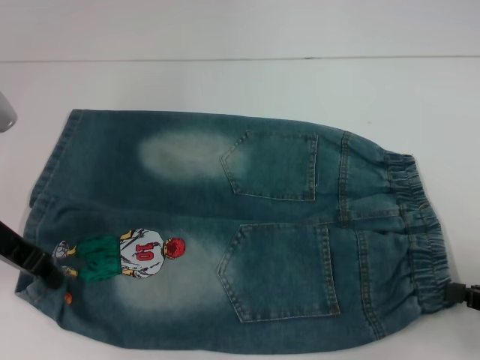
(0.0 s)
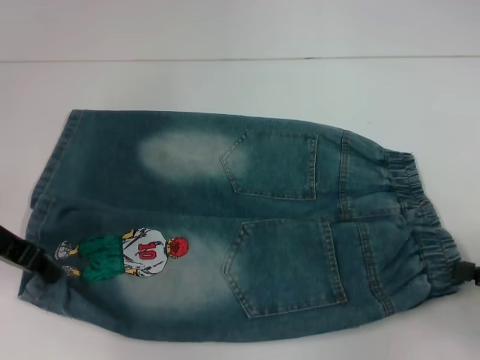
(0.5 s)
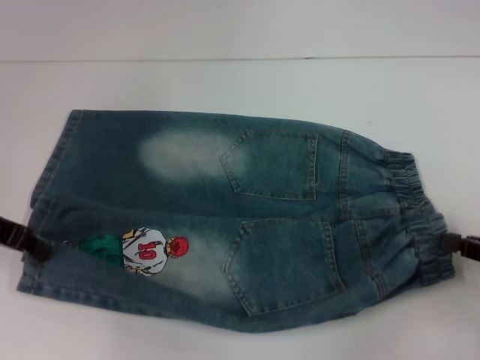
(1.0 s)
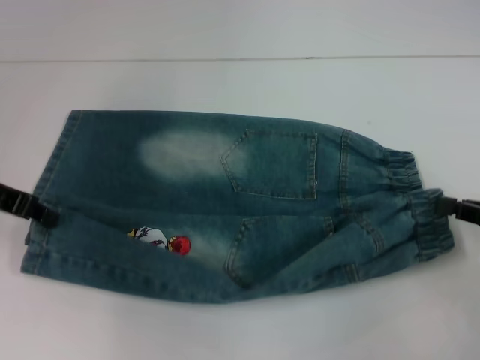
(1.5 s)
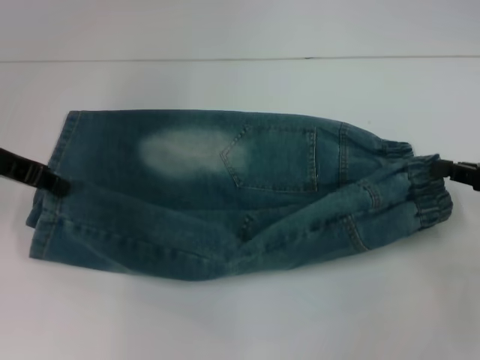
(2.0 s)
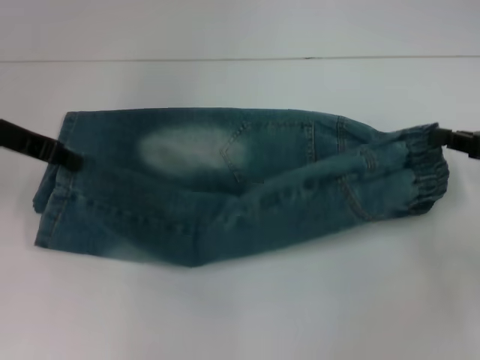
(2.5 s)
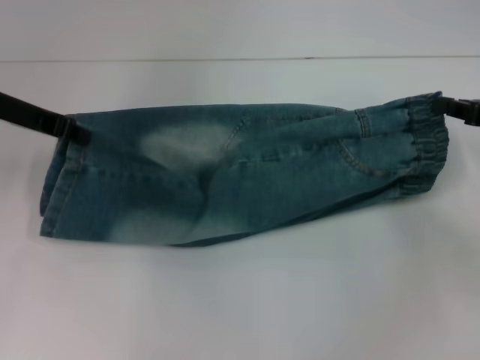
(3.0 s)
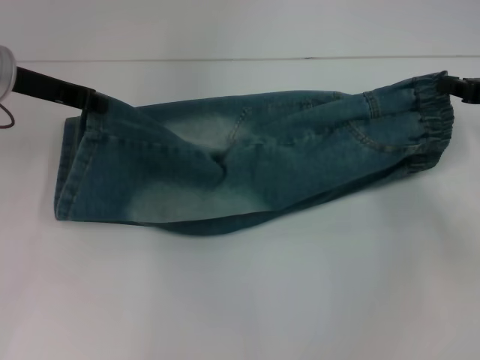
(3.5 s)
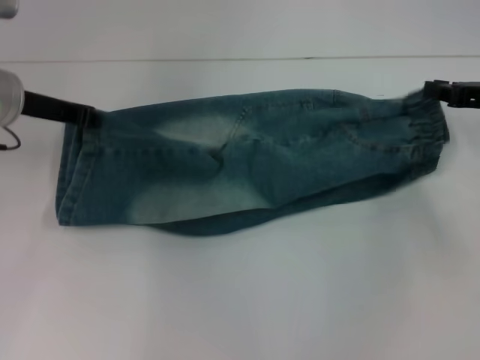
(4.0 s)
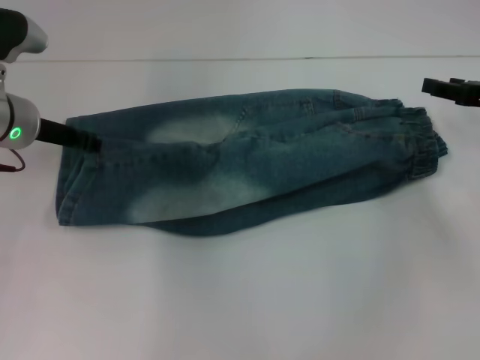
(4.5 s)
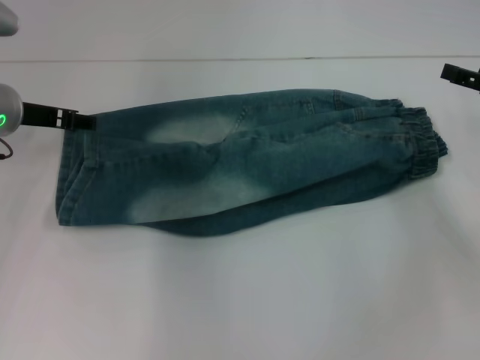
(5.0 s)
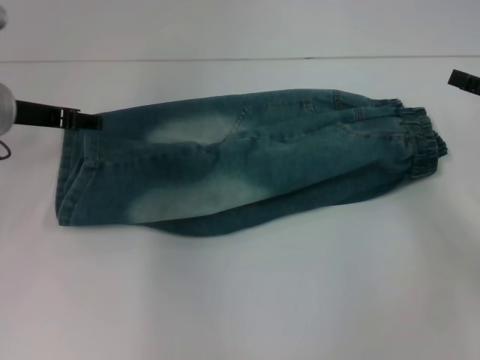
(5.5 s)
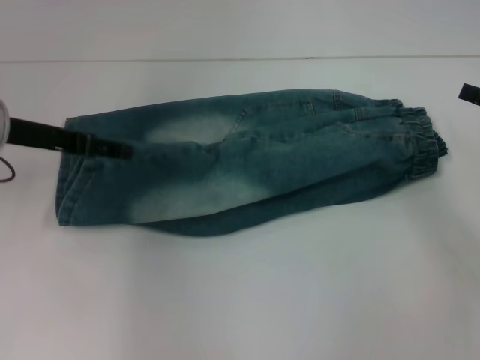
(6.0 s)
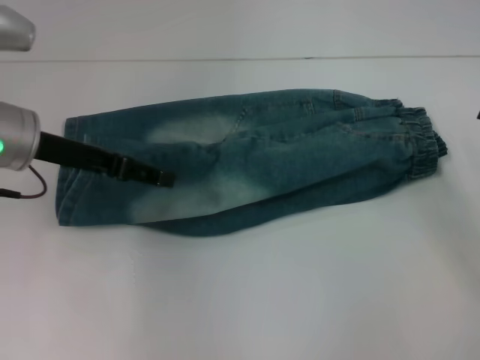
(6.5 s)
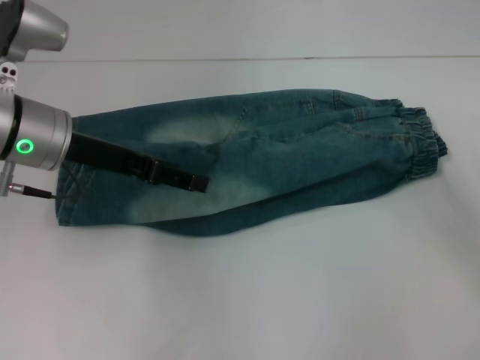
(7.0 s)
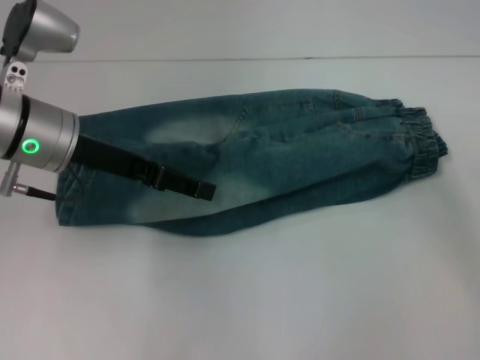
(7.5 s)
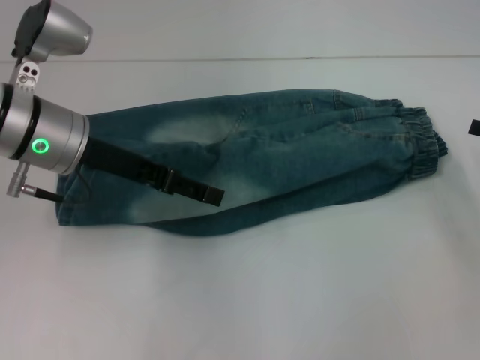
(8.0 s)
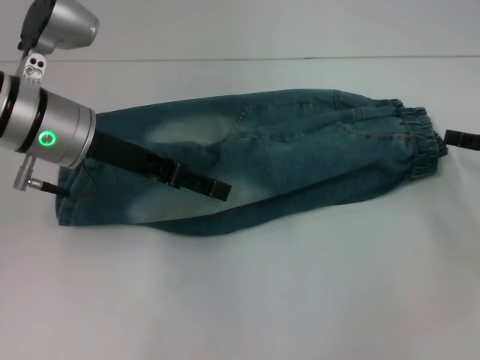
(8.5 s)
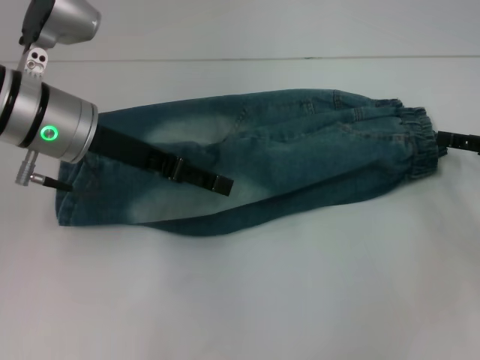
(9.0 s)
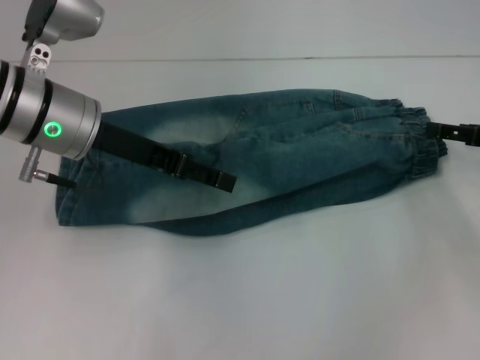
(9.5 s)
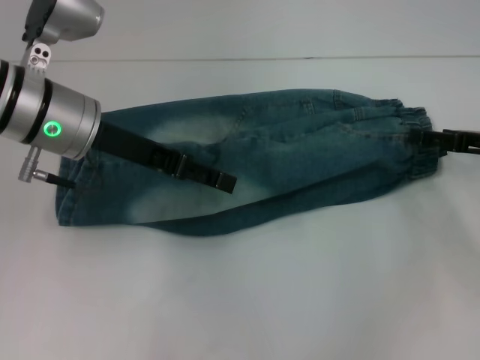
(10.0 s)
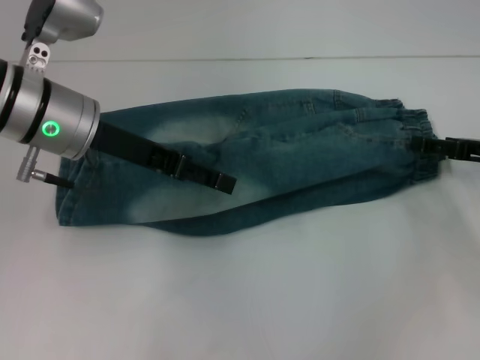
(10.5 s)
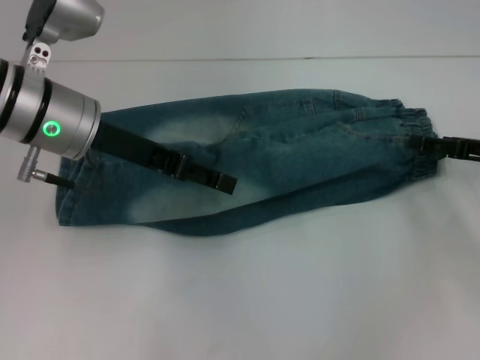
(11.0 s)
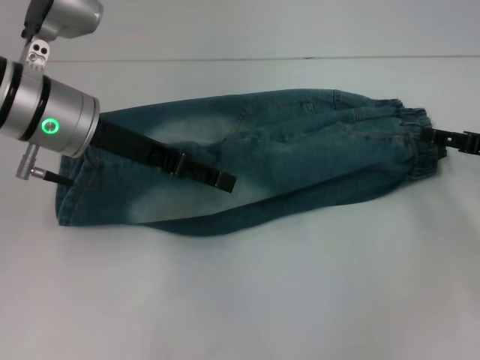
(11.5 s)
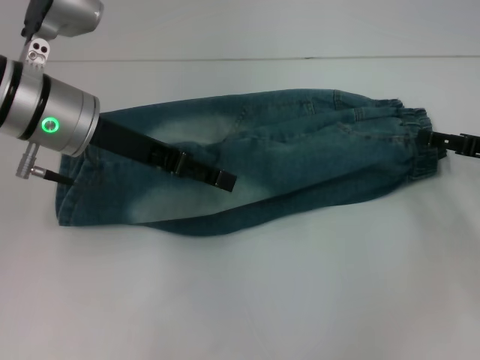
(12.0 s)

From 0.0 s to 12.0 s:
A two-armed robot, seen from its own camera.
Step, from 0.5 s to 4.0 s: Fold upward with your right hand.
From 0.0 s to 2.0 s: The right gripper moves forward, some 10 cm.
From 2.0 s to 4.0 s: The right gripper travels forward by some 10 cm. Meanwhile the left gripper moves about 5 cm.
From 4.0 s to 6.0 s: The right gripper travels backward by about 5 cm, and opens up, while the left gripper opens its fingers.
From 6.0 s to 8.0 s: The left gripper goes roughly 5 cm to the right.
From 8.0 s to 10.0 s: The right gripper travels to the left by roughly 5 cm.
From 10.0 s to 12.0 s: There are only small adjustments of the grippers.

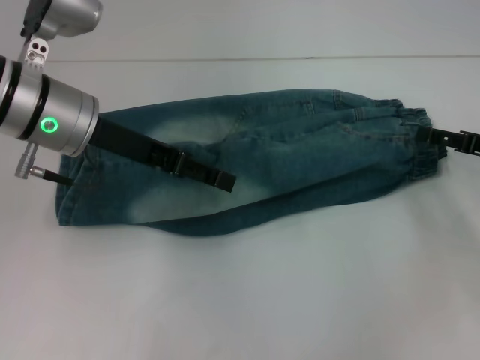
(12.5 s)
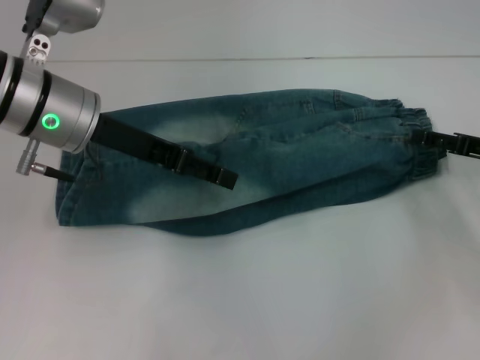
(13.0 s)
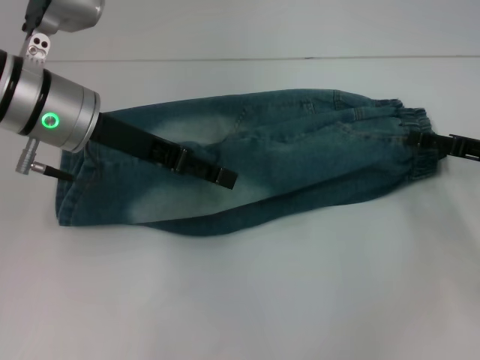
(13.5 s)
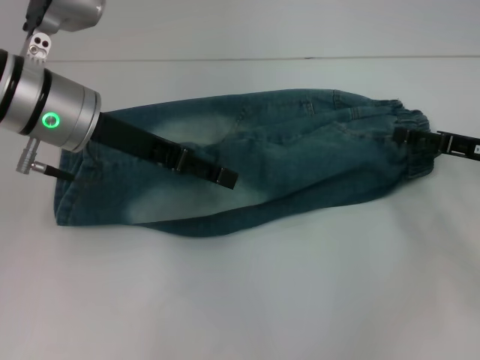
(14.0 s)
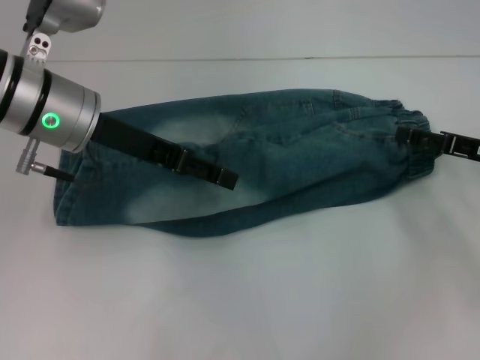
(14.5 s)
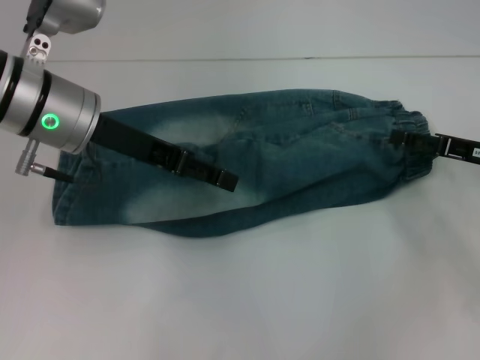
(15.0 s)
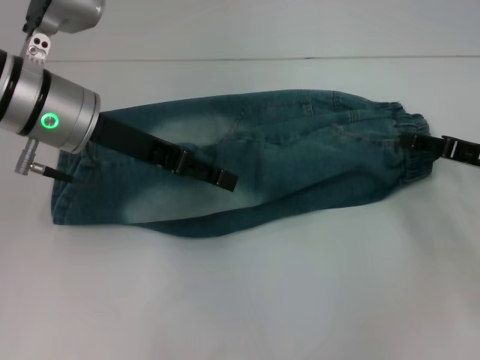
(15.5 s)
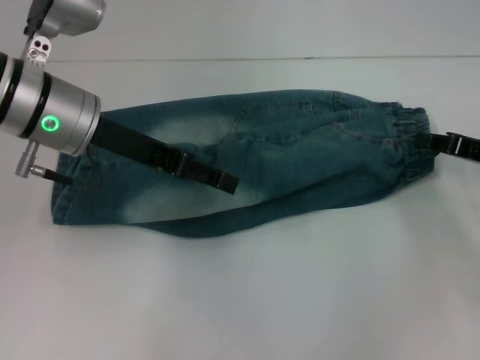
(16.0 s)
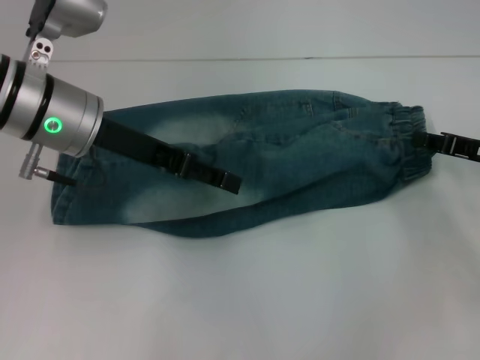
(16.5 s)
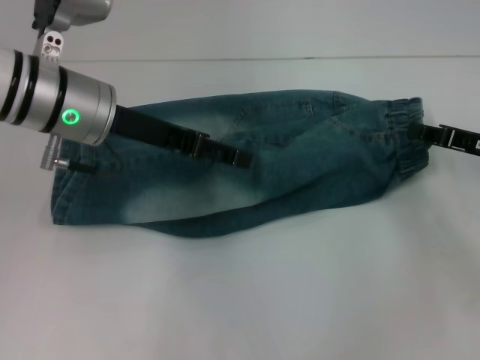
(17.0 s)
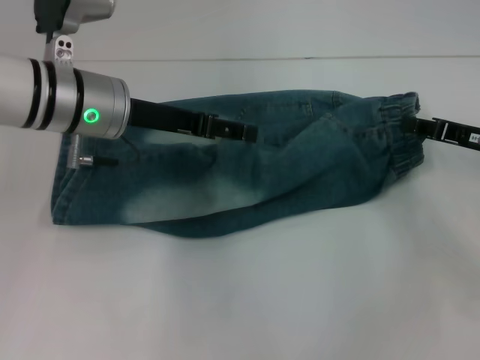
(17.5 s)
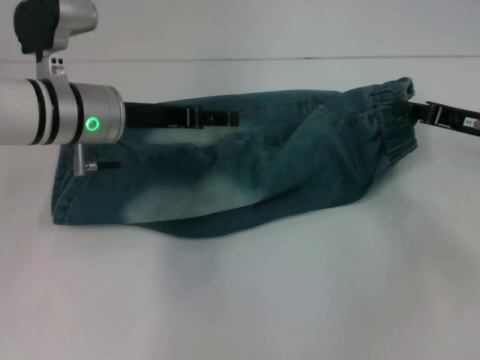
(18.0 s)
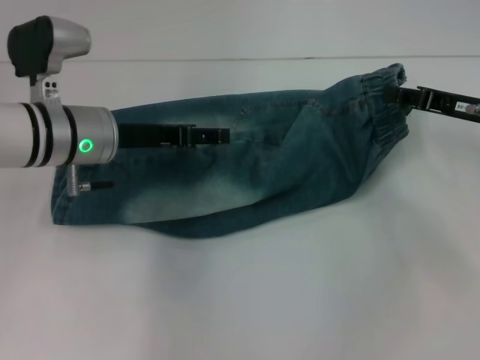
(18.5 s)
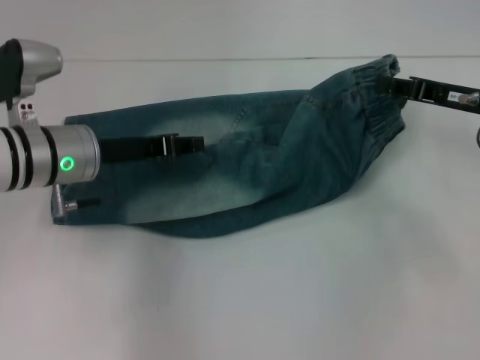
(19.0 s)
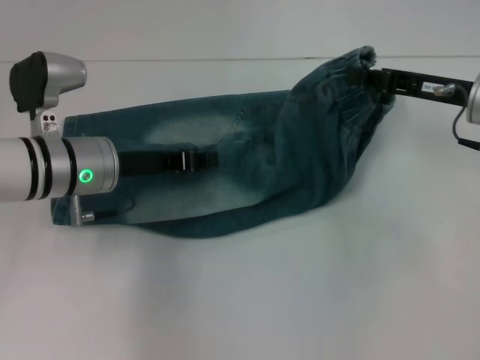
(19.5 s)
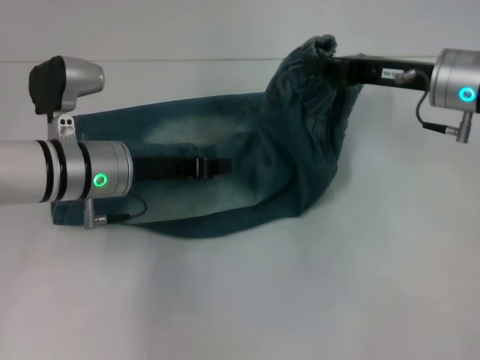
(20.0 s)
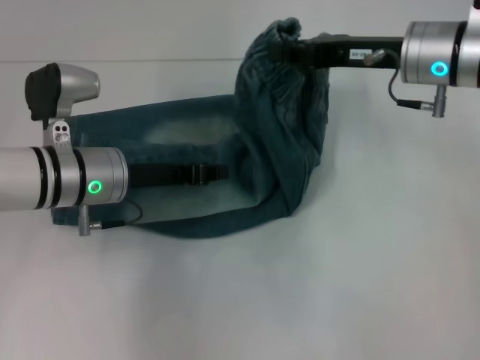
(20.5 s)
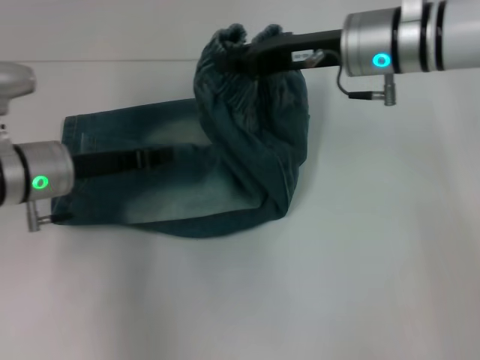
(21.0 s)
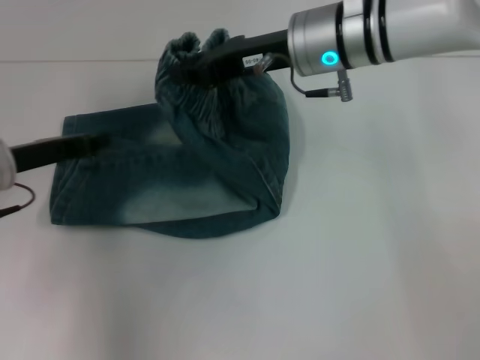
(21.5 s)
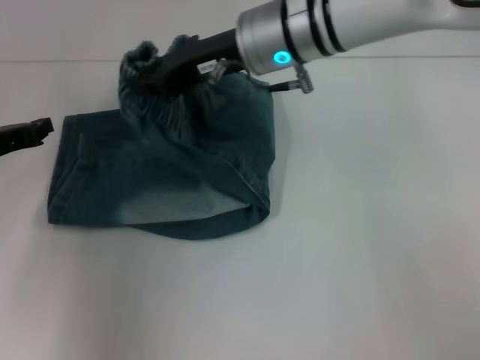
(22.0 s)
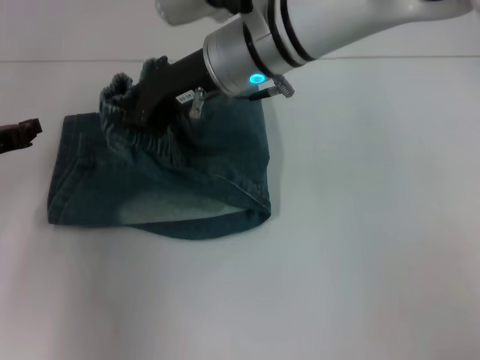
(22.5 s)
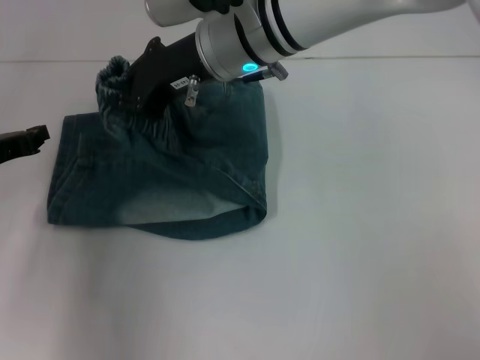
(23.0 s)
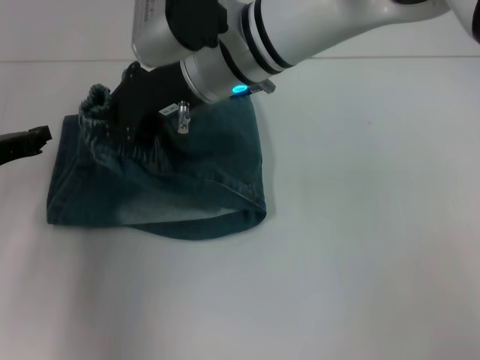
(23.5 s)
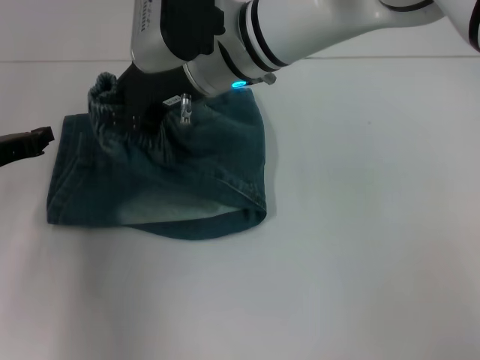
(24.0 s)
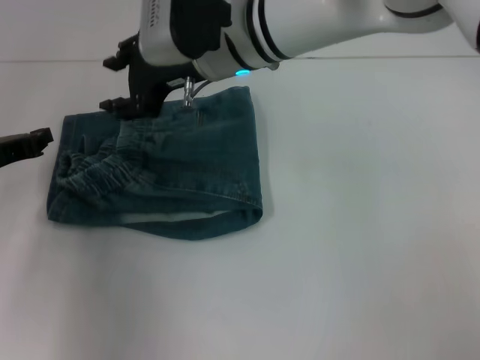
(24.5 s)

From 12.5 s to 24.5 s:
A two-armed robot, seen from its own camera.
Step, from 12.5 s to 16.5 s: Grab the waistband with your right hand.
Step, from 17.0 s to 20.0 s: Press the middle of the pants with your left hand.
Step, from 20.5 s to 24.5 s: Fold to the left with your right hand.
From 12.5 s to 14.5 s: There are only small adjustments of the grippers.
From 14.5 s to 16.5 s: The right gripper closes its fingers.
From 16.5 s to 18.5 s: The right gripper shifts by approximately 5 cm, while the left gripper is displaced downward by about 5 cm.
From 18.5 s to 20.5 s: The right gripper goes some 15 cm to the left and upward. Meanwhile the left gripper closes.
From 20.5 s to 22.5 s: The two grippers go about 15 cm to the left.
From 22.5 s to 24.5 s: The right gripper opens its fingers.

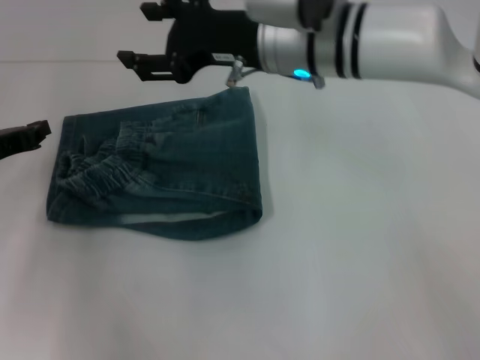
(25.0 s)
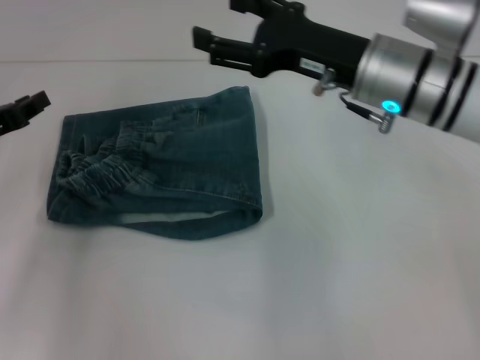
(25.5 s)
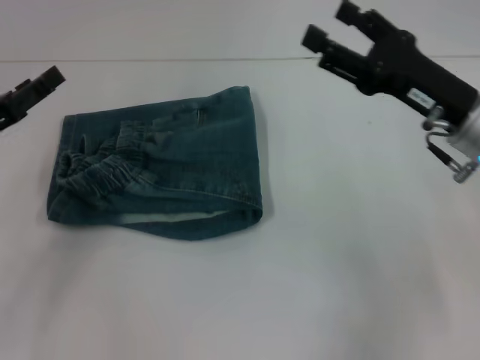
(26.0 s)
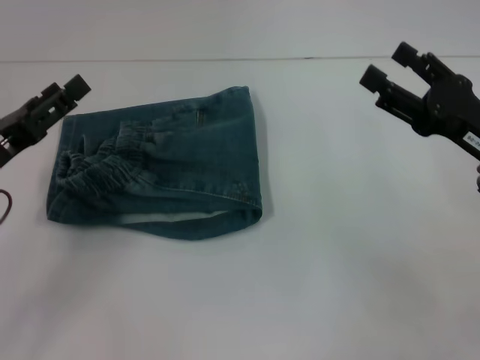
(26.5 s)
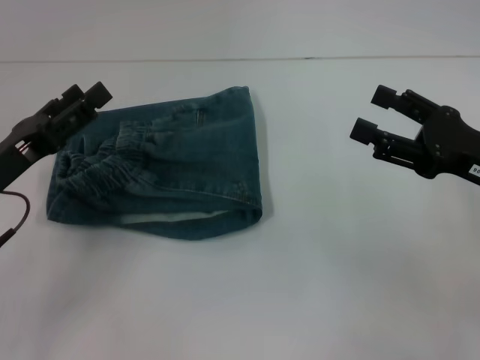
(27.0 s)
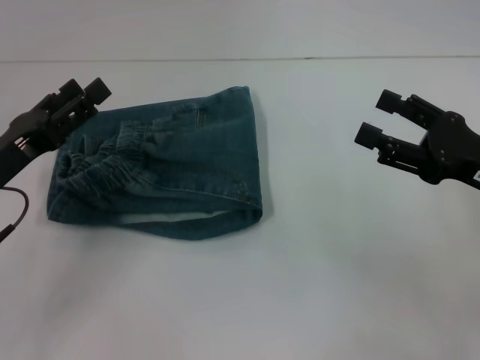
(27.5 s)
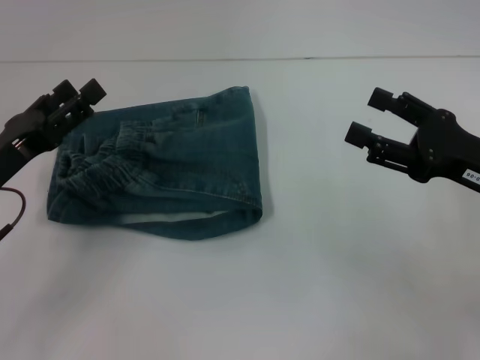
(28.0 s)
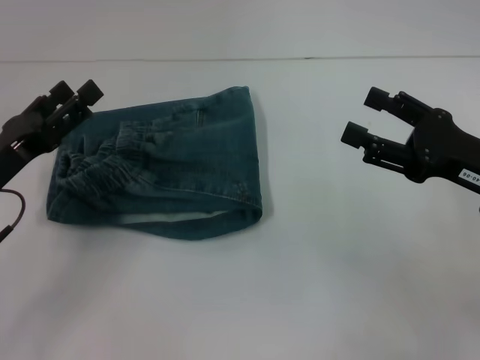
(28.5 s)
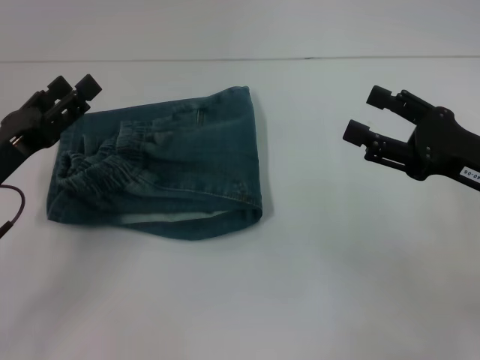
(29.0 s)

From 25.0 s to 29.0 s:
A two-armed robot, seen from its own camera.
From 25.0 s to 27.0 s: The left gripper moves backward, roughly 5 cm, and opens its fingers. The right gripper travels to the right and backward by about 25 cm.
From 27.0 s to 29.0 s: There are only small adjustments of the grippers.
